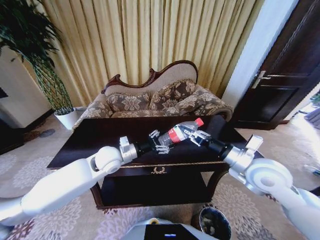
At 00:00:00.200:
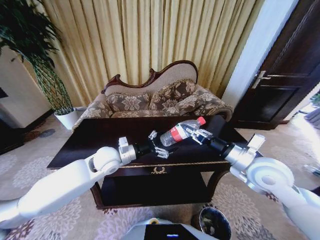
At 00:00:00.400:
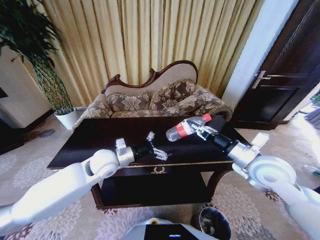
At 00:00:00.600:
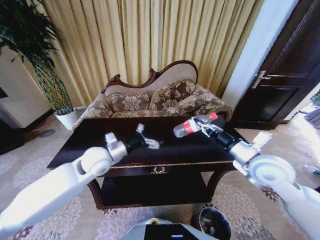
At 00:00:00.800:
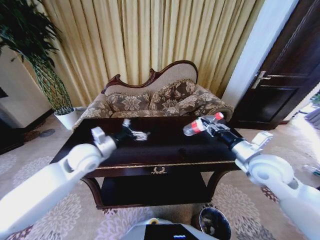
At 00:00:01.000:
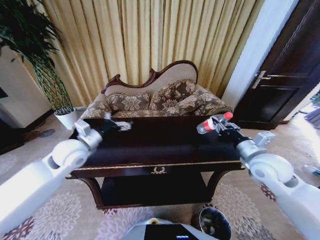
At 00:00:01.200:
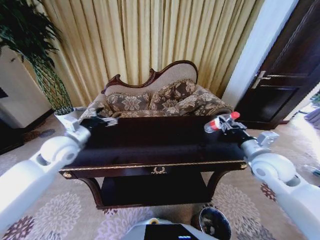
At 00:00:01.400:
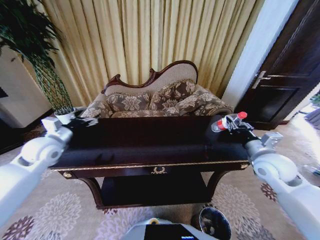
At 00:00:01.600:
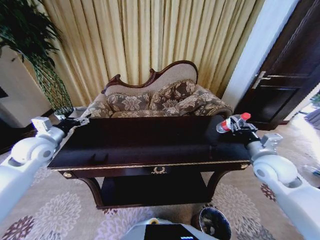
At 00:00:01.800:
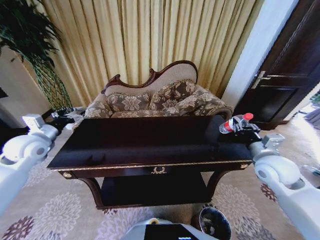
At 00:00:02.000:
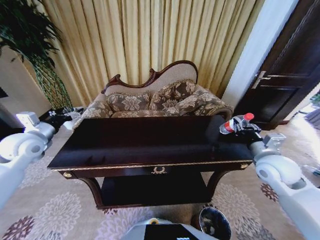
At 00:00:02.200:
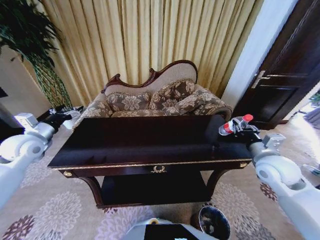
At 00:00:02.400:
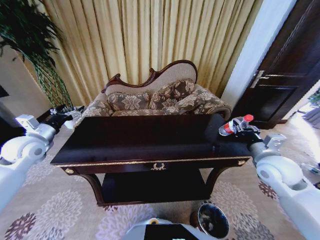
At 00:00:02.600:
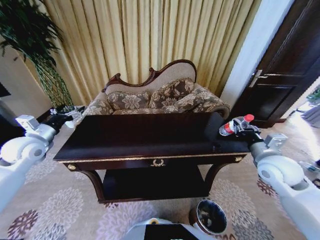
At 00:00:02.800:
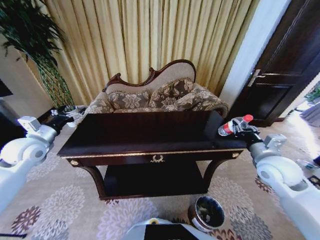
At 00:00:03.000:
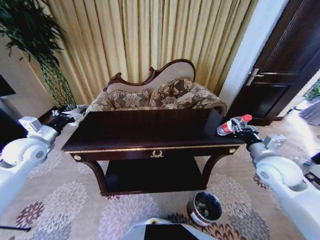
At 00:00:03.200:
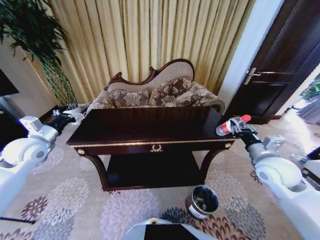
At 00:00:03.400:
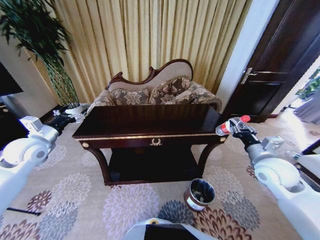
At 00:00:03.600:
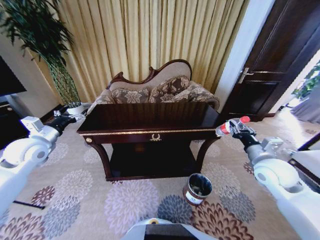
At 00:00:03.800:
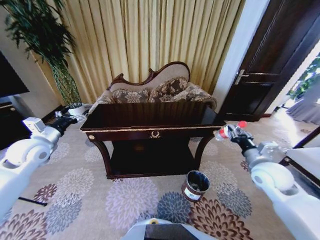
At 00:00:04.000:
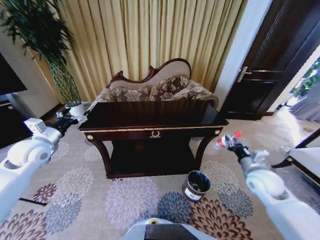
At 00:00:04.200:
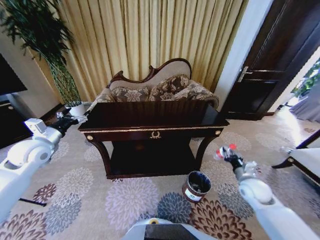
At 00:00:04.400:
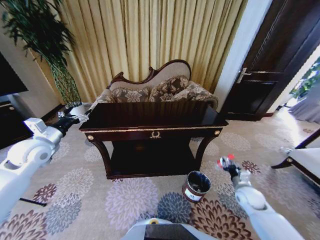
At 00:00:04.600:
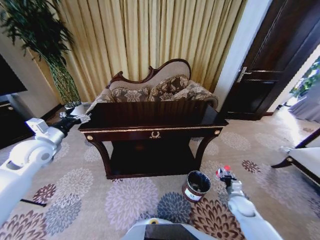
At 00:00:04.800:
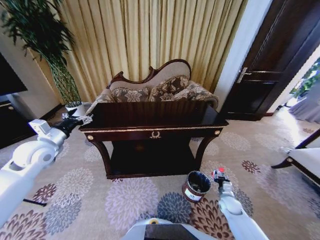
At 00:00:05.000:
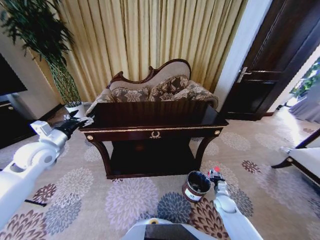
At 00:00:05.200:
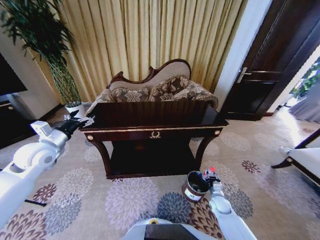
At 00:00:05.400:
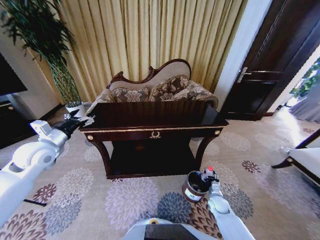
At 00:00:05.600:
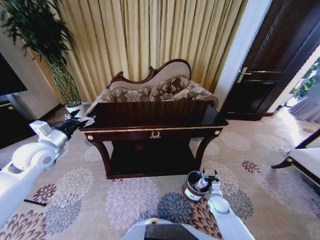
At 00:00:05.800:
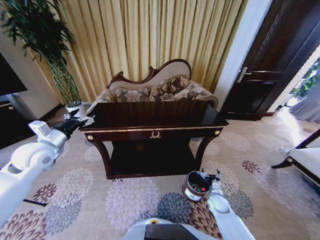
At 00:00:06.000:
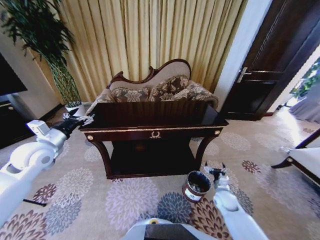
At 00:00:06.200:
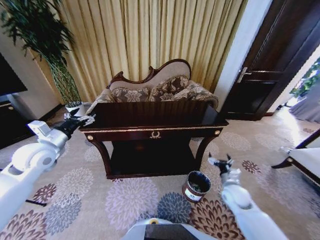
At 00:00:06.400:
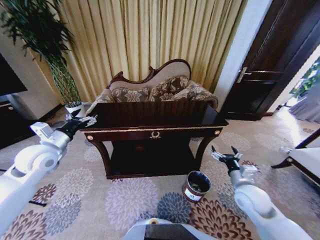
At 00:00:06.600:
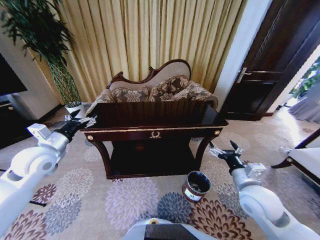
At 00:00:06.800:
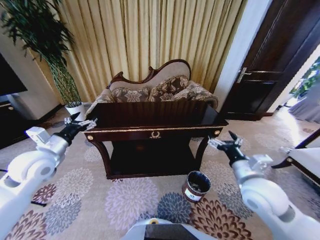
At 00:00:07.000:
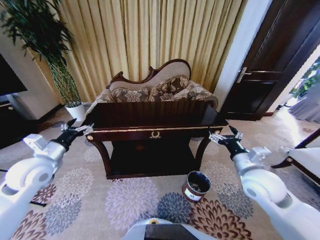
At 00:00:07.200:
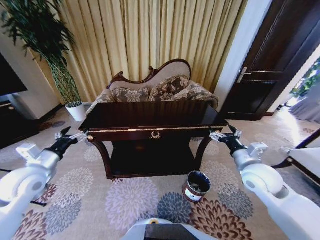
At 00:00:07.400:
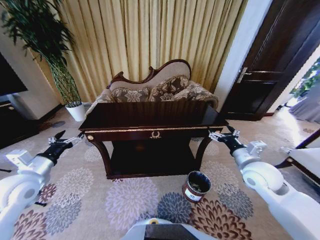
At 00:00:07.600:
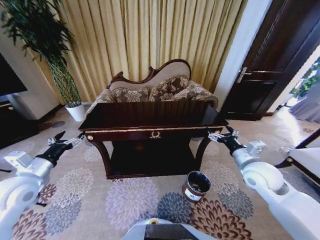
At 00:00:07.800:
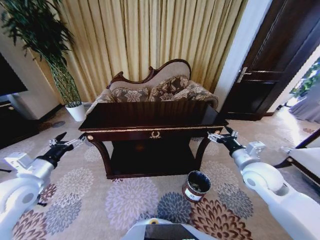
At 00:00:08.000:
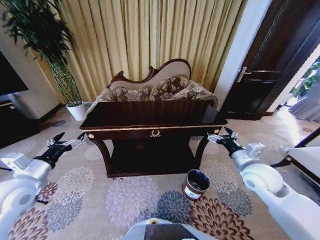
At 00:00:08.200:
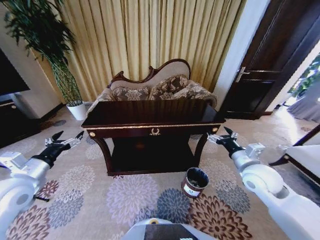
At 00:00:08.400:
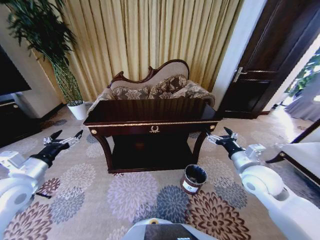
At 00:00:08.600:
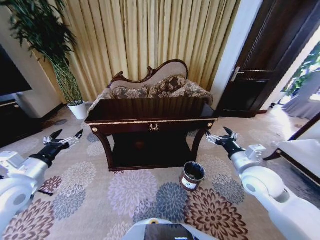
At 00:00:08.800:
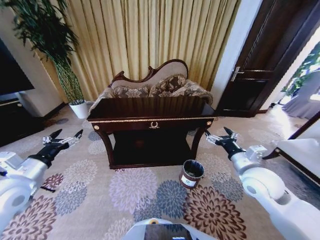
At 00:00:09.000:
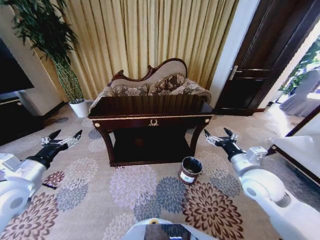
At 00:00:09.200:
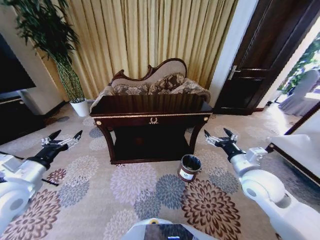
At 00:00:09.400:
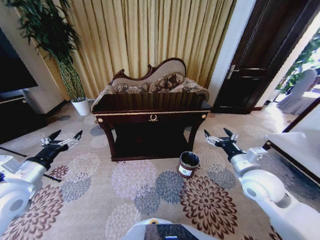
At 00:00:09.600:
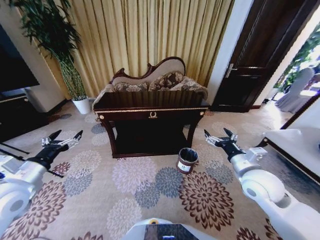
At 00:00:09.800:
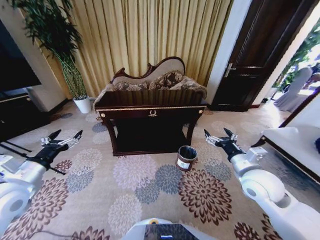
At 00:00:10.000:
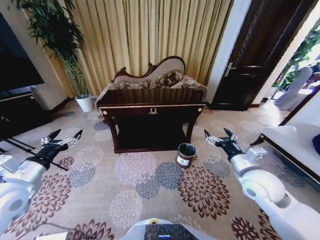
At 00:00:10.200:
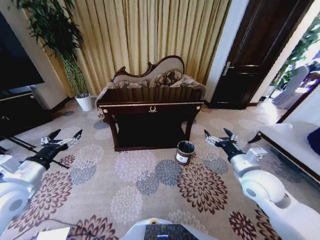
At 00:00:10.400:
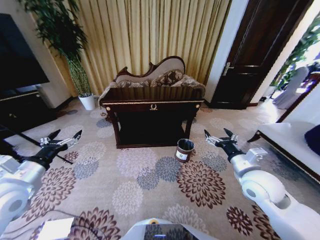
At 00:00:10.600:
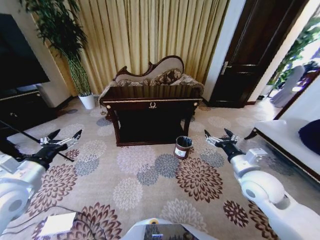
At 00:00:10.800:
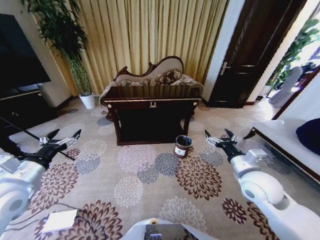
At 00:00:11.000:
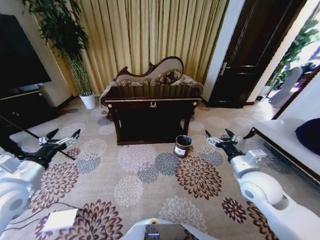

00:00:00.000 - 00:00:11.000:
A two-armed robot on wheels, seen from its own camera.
Task of the whole recording: Move to the front of the table and place the trash on the table into the trash bin.
00:00:00.000 - 00:00:01.600: The right gripper moves to the right, some 10 cm, while the left gripper goes approximately 25 cm to the left, and opens up.
00:00:03.200 - 00:00:04.800: The right gripper moves downward, about 35 cm.
00:00:04.800 - 00:00:06.200: The right gripper moves upward, approximately 15 cm, and opens its fingers.
00:00:06.200 - 00:00:07.800: The right gripper goes approximately 15 cm upward. The left gripper shifts roughly 10 cm backward.

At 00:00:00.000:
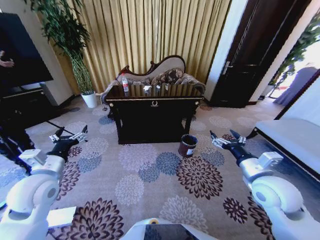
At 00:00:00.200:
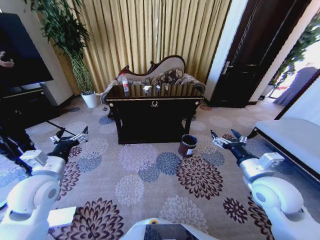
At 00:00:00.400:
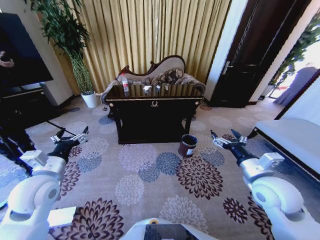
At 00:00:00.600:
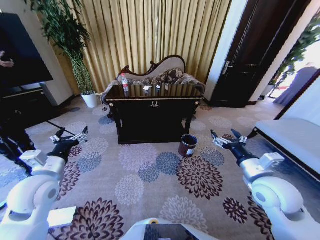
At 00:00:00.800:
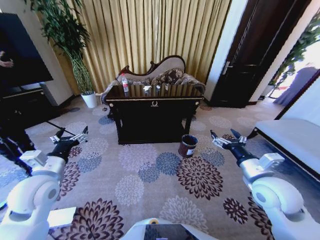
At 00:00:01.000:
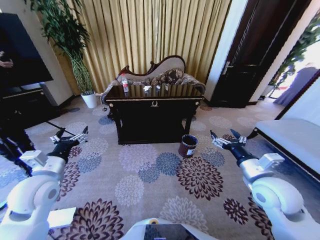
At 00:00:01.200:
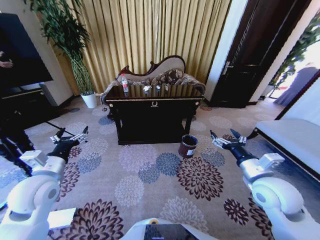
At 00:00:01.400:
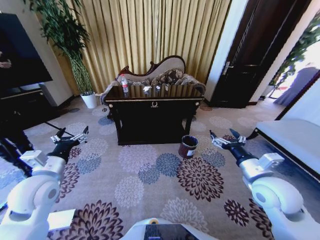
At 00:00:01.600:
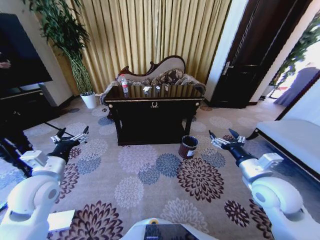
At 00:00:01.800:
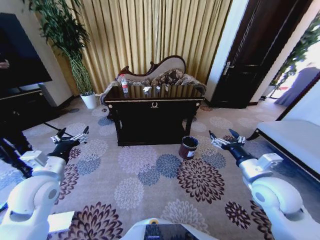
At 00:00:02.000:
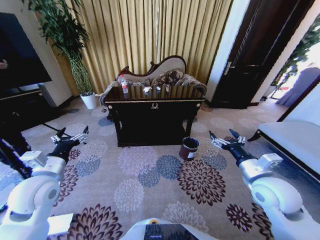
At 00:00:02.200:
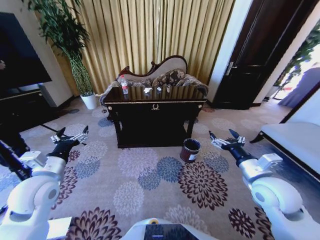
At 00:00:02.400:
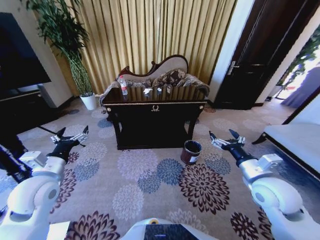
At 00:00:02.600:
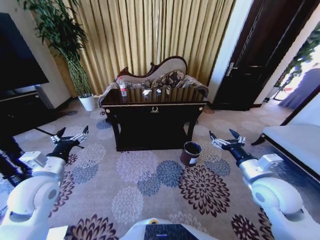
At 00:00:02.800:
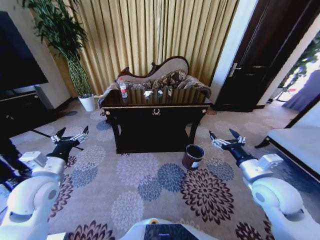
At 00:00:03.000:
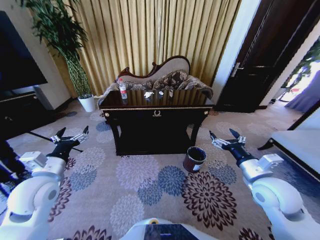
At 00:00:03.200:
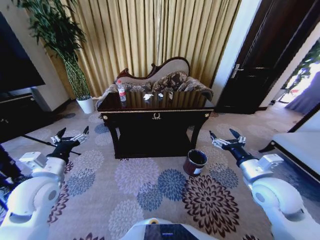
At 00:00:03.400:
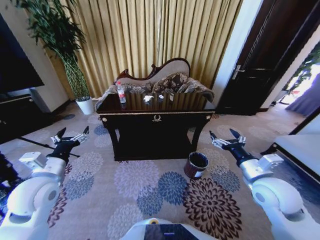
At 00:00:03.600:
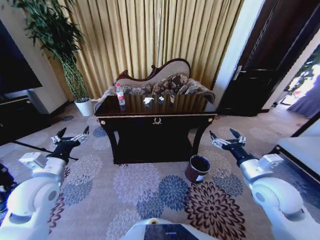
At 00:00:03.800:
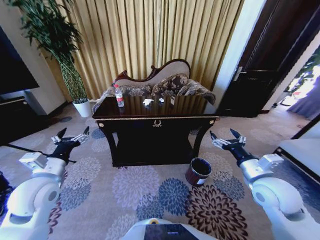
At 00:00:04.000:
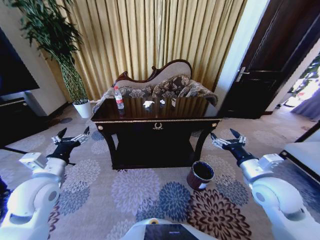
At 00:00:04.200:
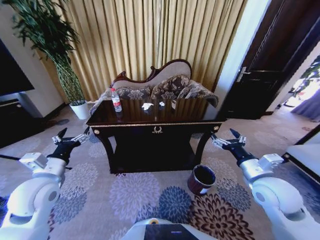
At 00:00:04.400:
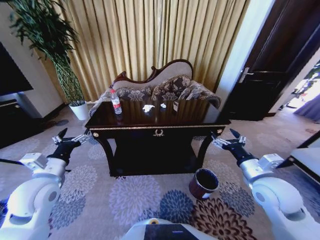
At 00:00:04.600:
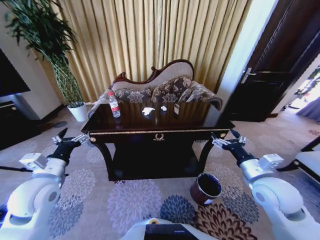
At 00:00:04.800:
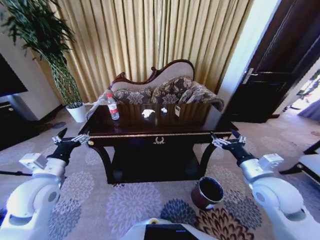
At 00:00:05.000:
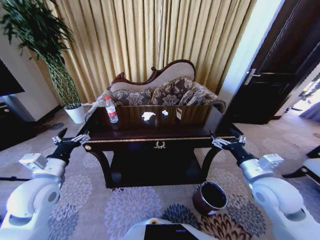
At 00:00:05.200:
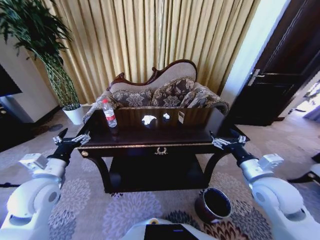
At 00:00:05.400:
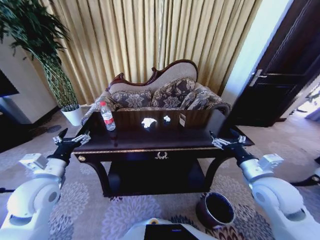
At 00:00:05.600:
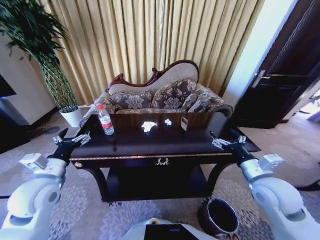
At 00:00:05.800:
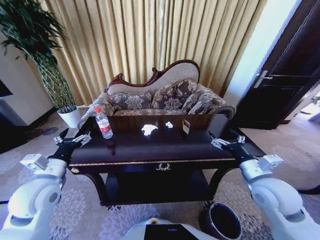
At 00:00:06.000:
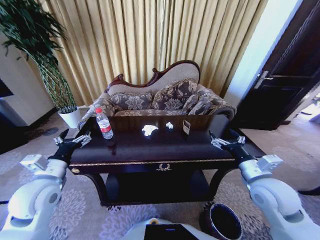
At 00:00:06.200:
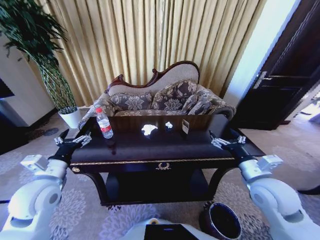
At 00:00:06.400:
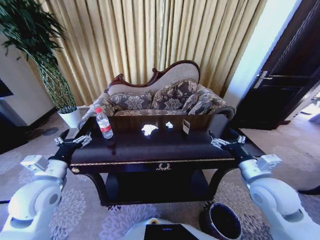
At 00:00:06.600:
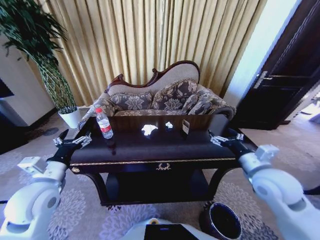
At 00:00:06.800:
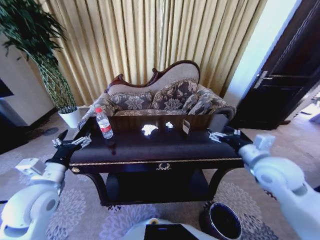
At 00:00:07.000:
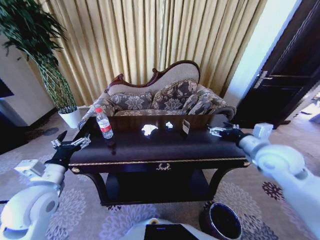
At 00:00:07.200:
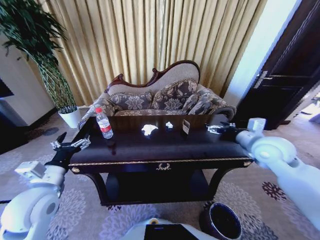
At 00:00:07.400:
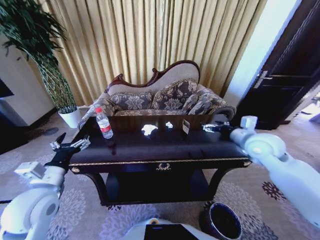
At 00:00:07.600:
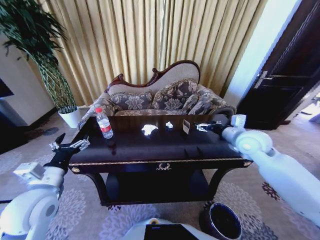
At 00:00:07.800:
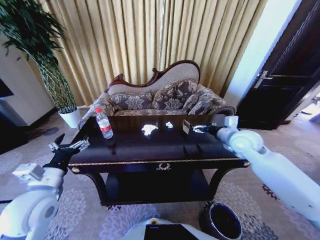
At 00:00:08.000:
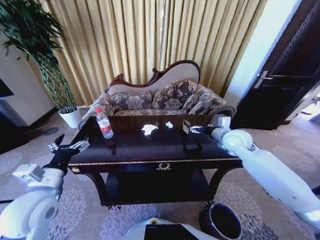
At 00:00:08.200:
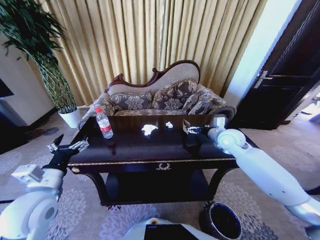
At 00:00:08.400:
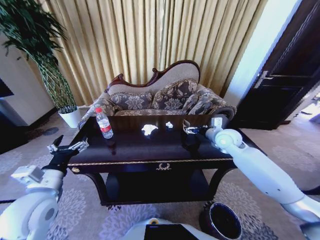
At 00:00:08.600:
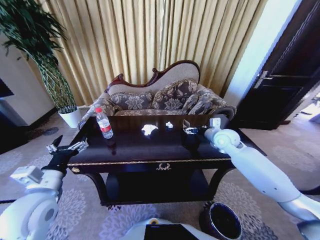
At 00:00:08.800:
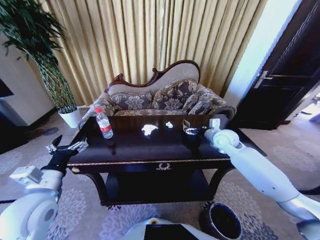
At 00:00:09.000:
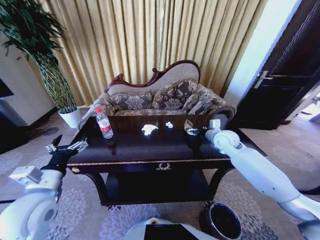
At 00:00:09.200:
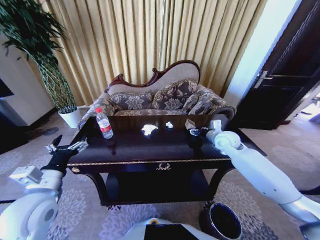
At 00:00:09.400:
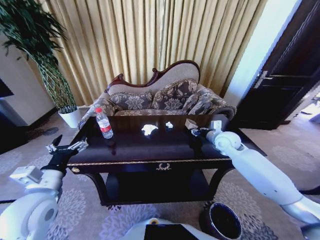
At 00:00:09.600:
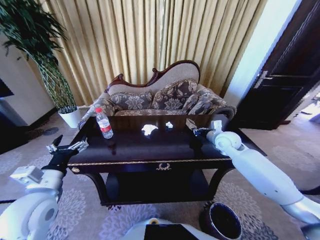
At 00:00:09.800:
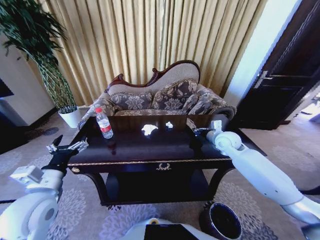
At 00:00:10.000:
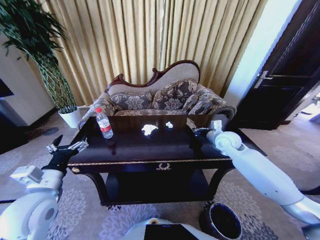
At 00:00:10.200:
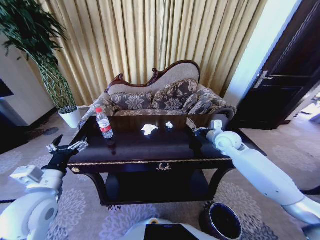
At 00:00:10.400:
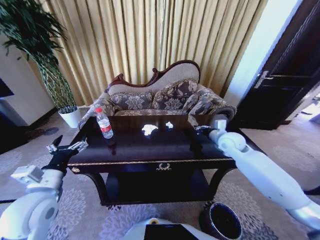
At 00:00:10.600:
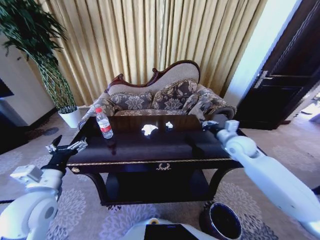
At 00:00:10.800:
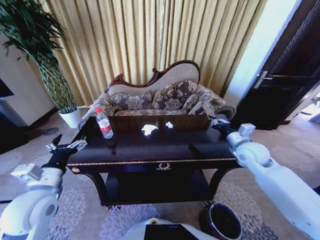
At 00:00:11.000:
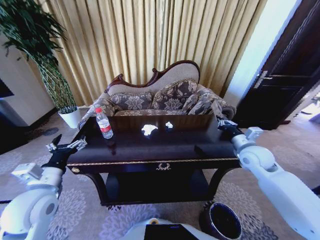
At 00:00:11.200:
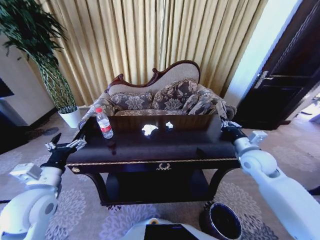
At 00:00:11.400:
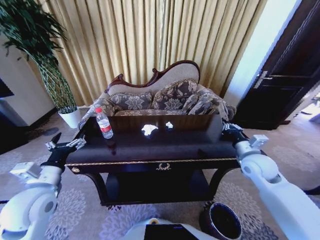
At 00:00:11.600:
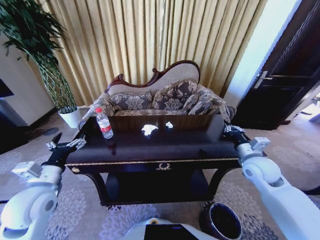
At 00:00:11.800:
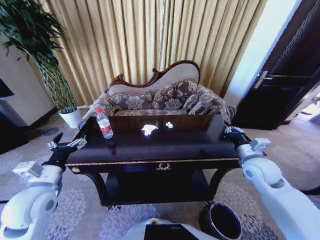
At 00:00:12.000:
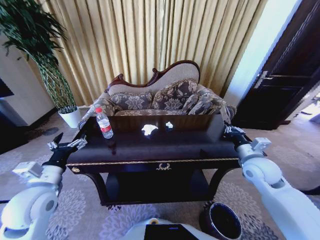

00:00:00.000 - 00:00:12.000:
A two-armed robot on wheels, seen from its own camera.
Task of the whole recording: Move to the front of the table and place the trash on the table into the trash bin.
00:00:06.000 - 00:00:07.600: The right gripper travels forward by approximately 15 cm.
00:00:07.600 - 00:00:09.000: The right gripper is displaced forward and downward by approximately 10 cm.
00:00:09.000 - 00:00:10.400: The right gripper closes its fingers.
00:00:10.400 - 00:00:12.000: The right gripper shifts about 10 cm backward.
